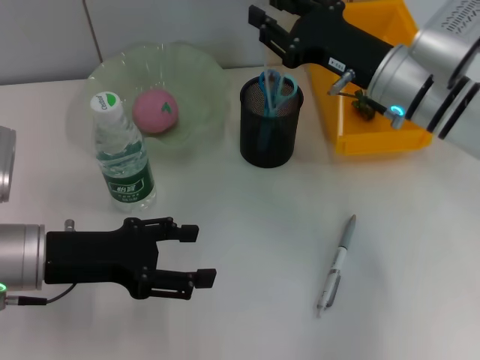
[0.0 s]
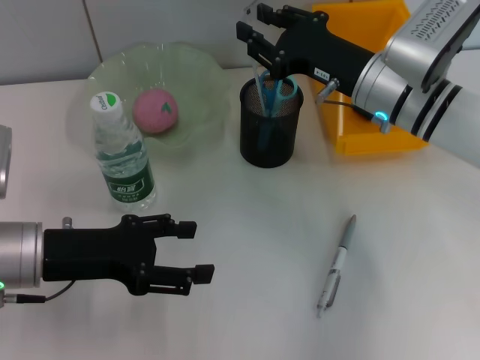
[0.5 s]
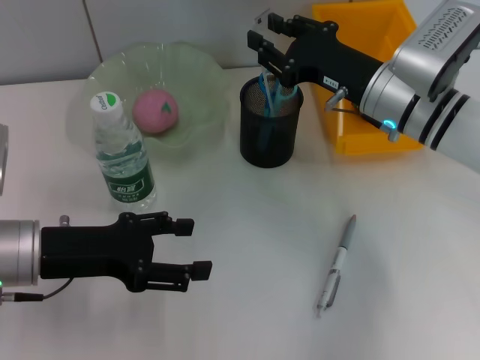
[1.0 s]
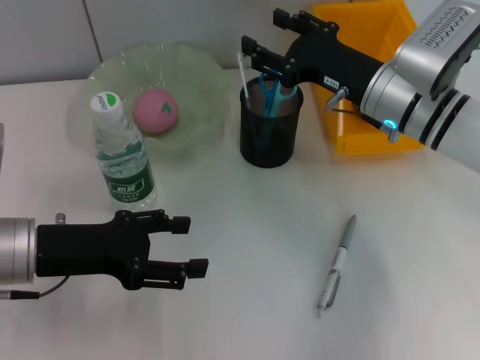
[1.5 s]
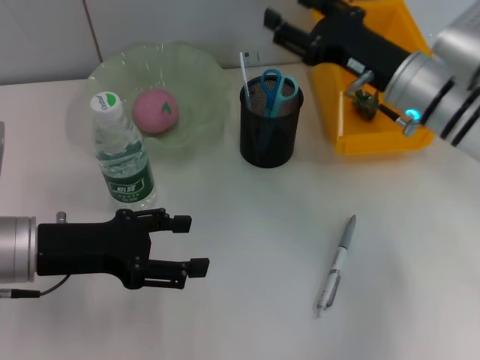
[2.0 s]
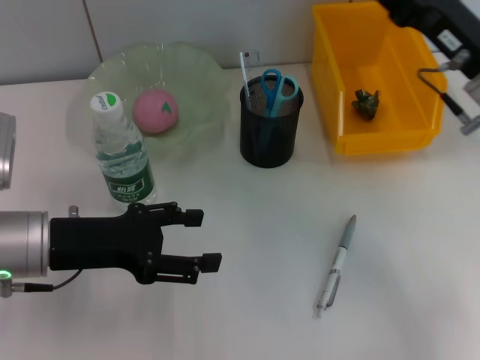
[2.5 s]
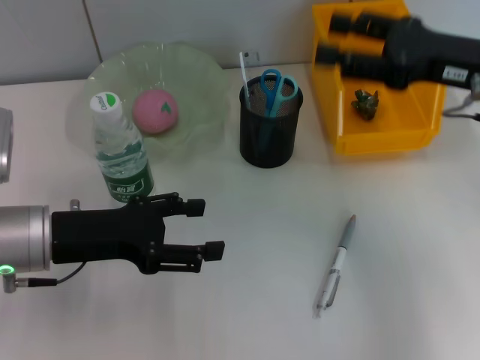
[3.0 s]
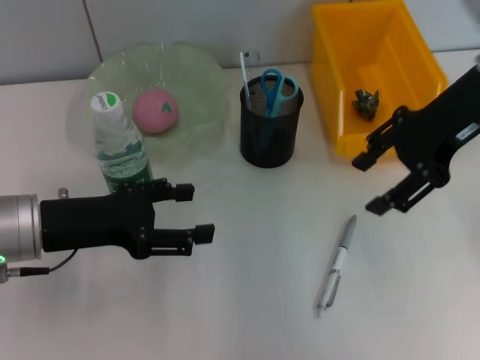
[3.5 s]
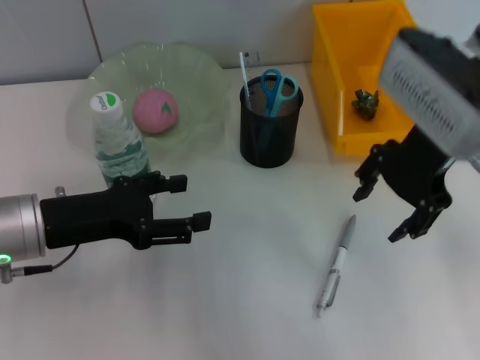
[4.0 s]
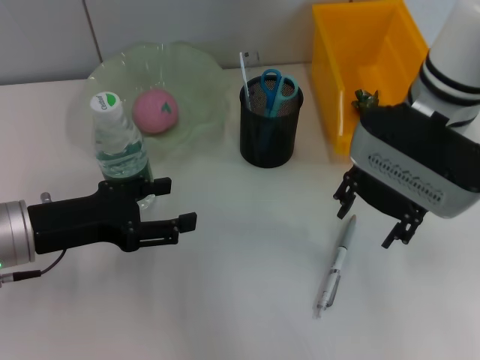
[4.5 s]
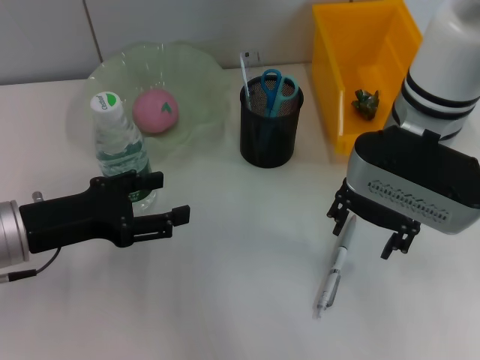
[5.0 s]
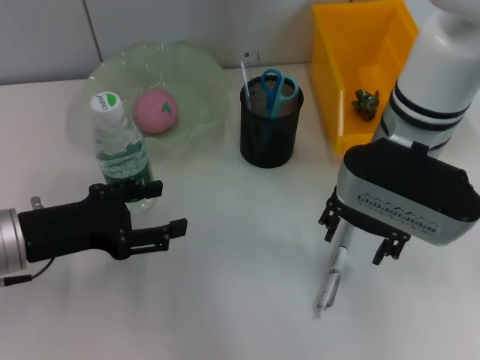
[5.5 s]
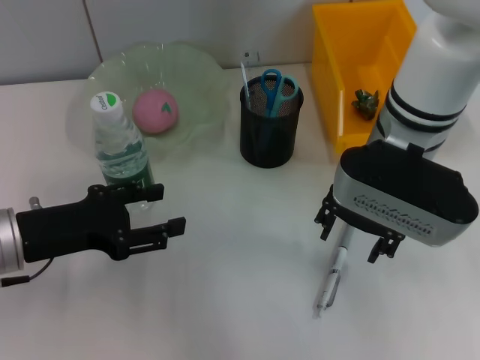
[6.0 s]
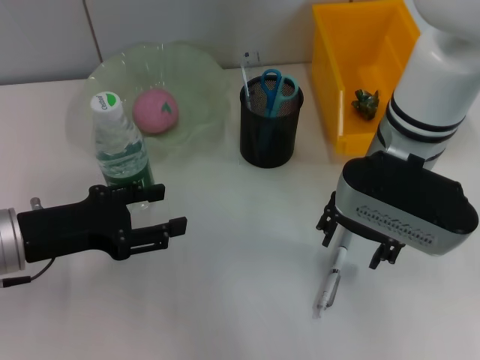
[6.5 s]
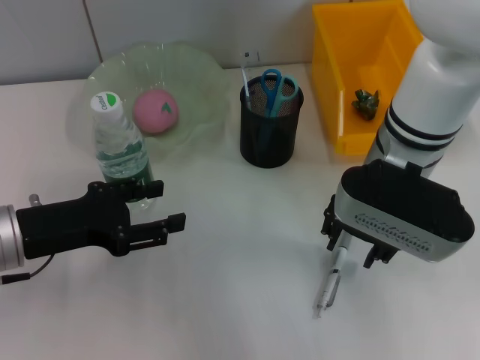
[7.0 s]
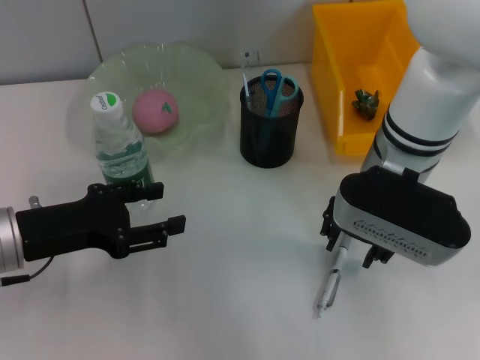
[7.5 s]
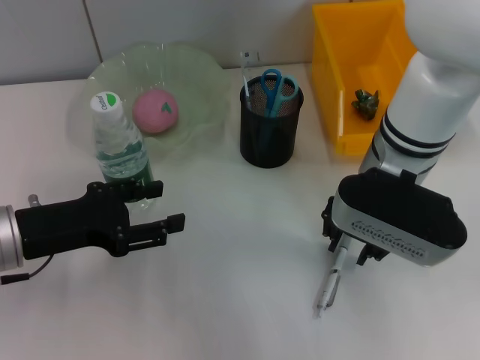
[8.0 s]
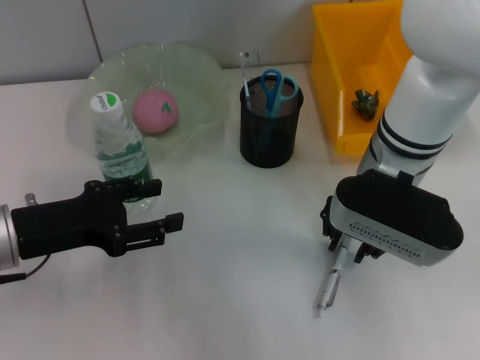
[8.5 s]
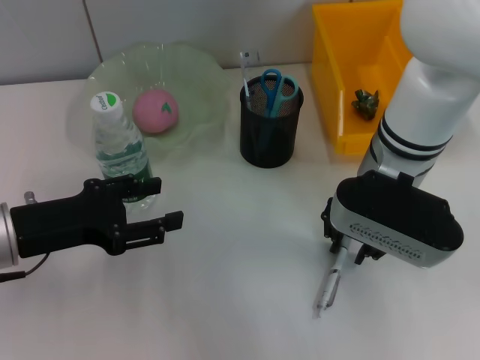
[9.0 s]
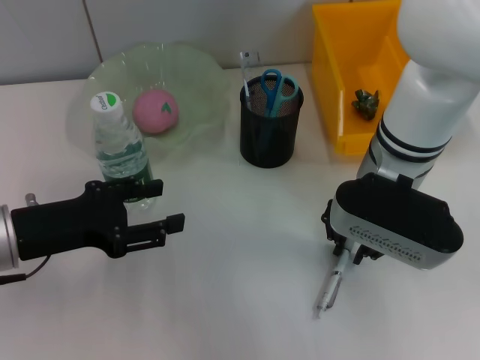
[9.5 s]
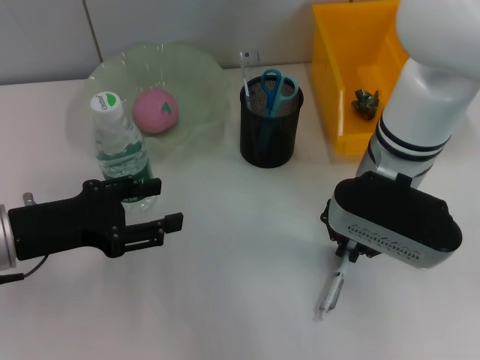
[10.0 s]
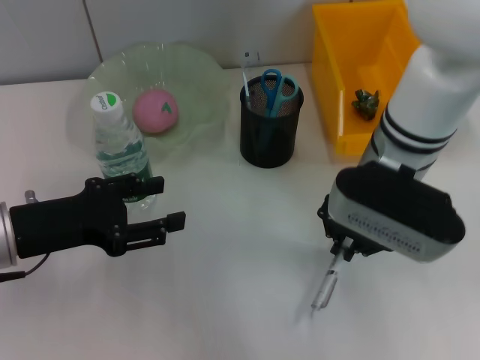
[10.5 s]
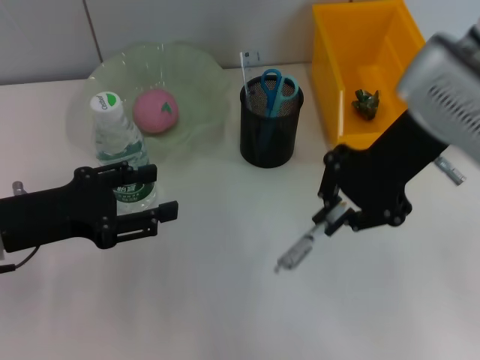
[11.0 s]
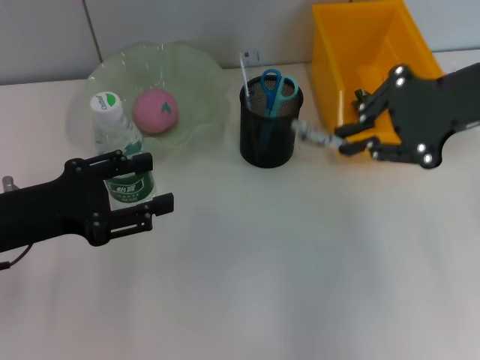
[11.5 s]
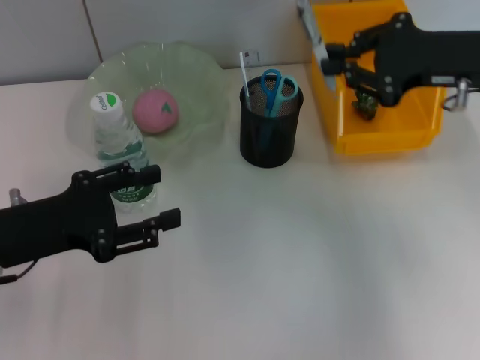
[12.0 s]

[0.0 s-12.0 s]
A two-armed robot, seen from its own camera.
Step, 2.0 to 10.0 s: Grab the gray spring-action pen with the right hand.
0.0 to 2.0 s: The right gripper opens.
2.0 to 4.0 s: The right gripper travels upward by roughly 10 cm.
4.0 to 6.0 s: The right gripper travels to the left by approximately 5 cm.
6.0 to 8.0 s: The right gripper closes.
8.0 to 10.0 s: The right gripper closes.
10.0 to 12.0 s: The right gripper travels to the right and upward by some 15 cm.

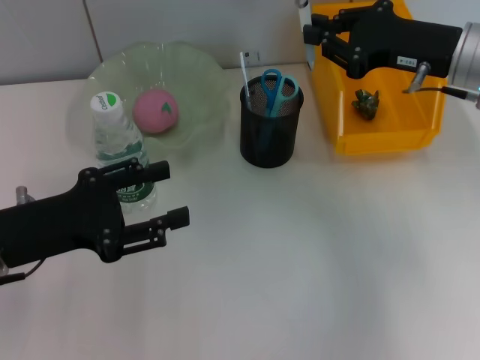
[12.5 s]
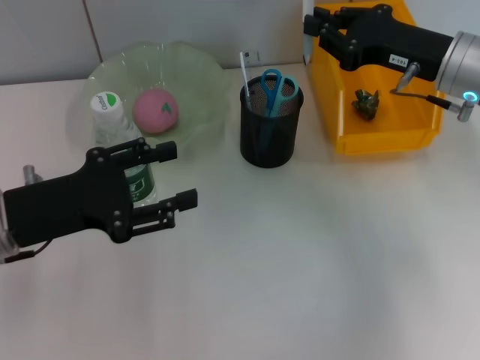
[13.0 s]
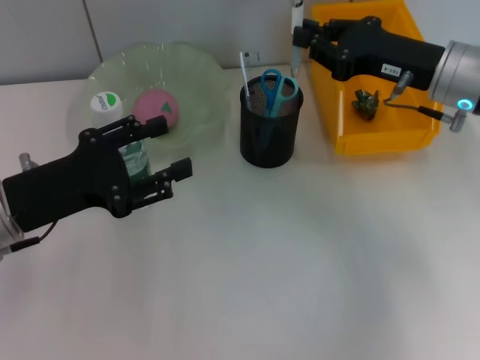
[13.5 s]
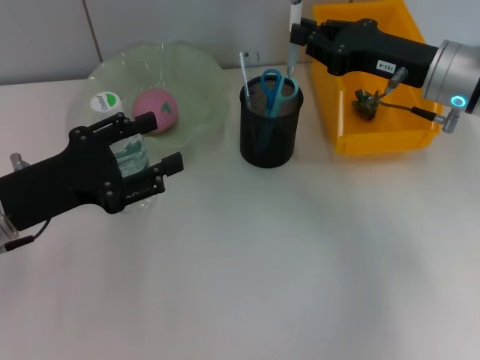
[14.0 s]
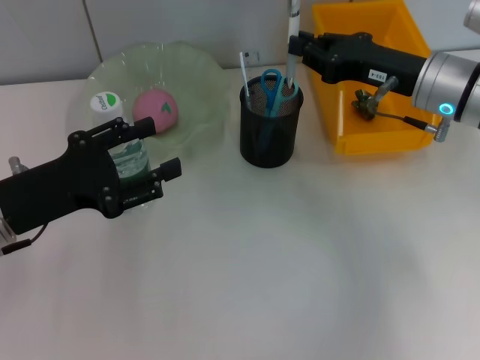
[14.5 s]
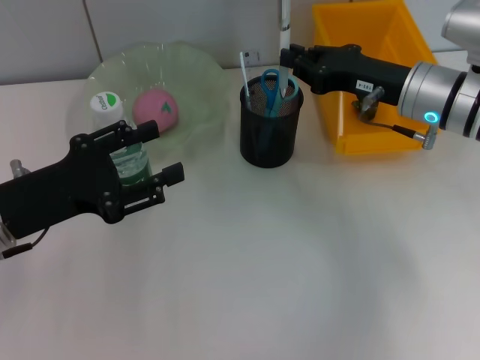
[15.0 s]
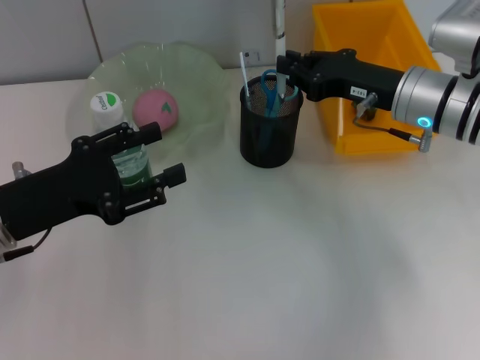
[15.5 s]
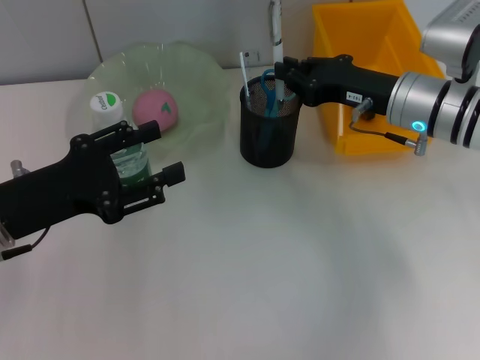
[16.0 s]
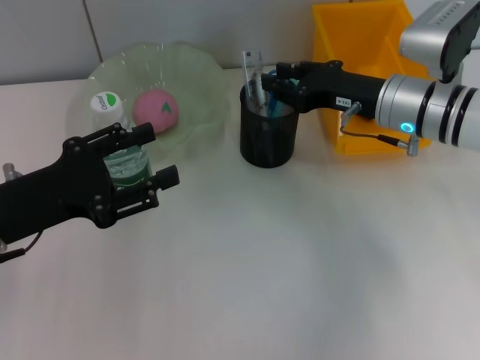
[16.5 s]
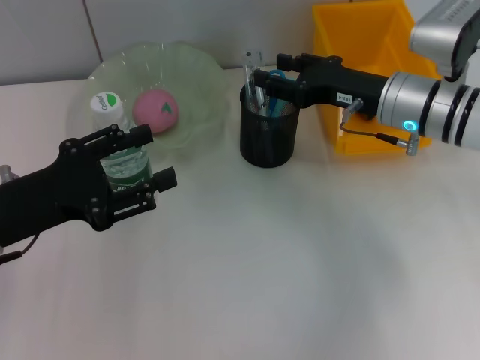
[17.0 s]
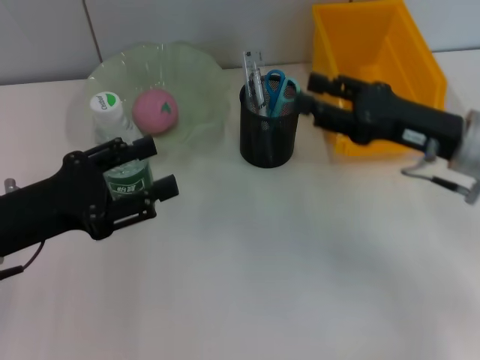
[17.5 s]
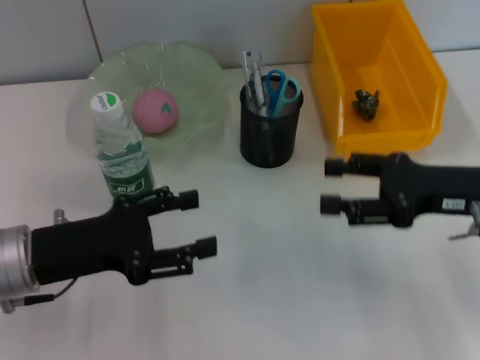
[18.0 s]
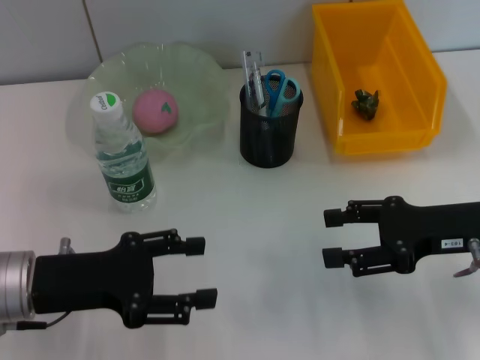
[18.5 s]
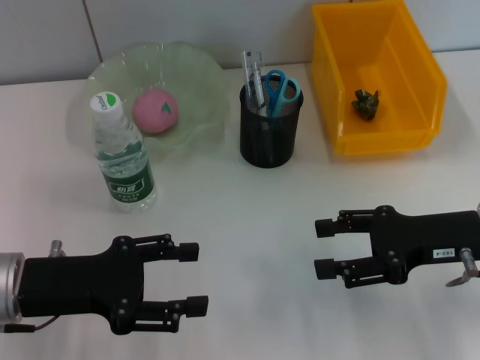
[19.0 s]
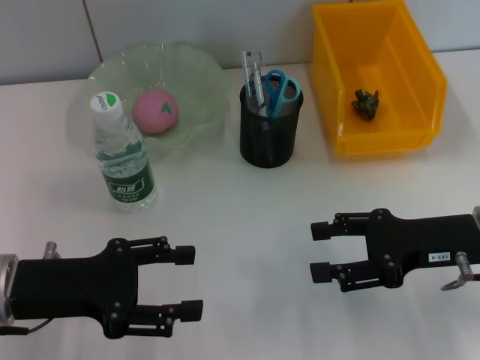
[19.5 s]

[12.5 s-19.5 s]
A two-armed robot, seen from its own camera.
Step, 12.5 to 17.0 s: Place the gray spring-action pen into the pen holder with the right hand.
14.5 to 16.0 s: The grippers stay close to where they were, moving slightly.
16.0 to 17.5 s: The right gripper heads backward, covering some 5 cm, and opens.
17.5 to 19.5 s: The right gripper goes approximately 5 cm backward.
